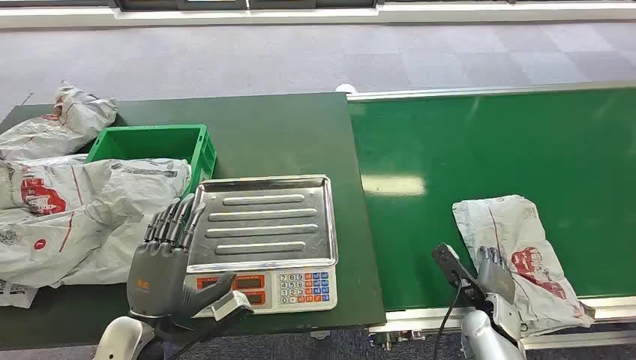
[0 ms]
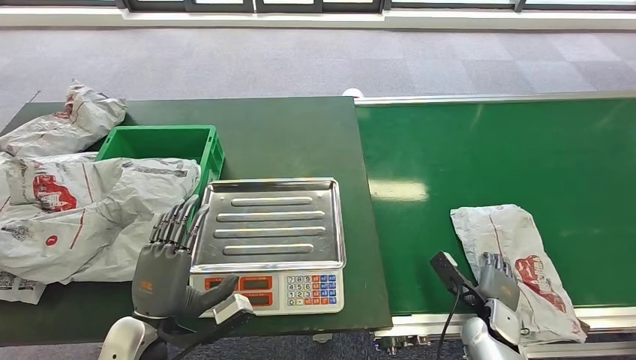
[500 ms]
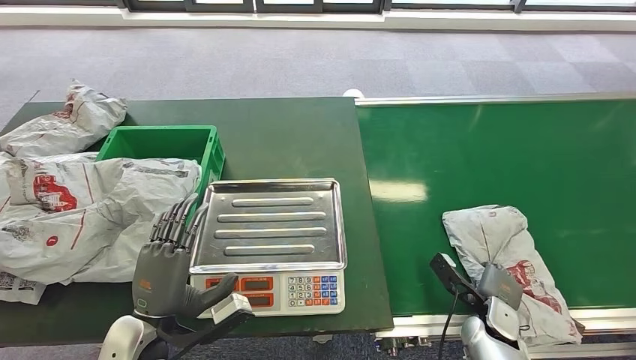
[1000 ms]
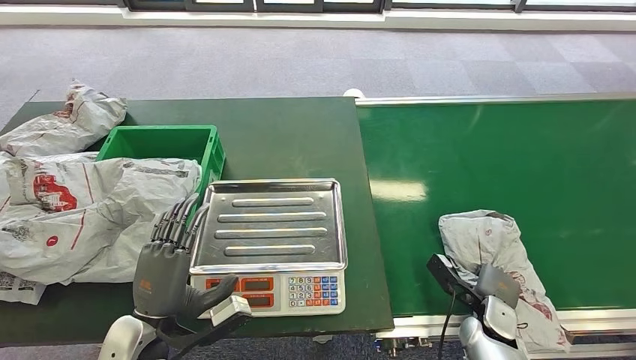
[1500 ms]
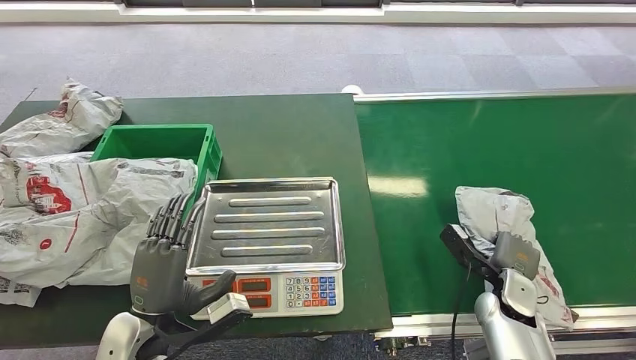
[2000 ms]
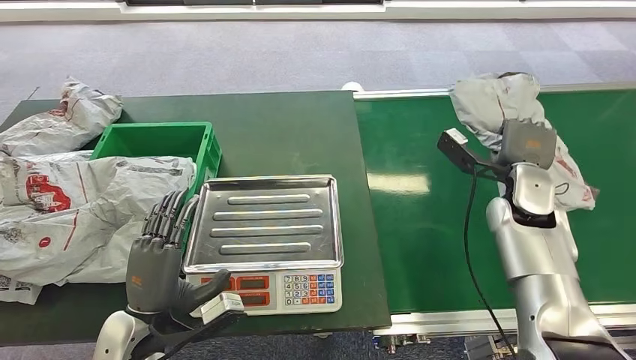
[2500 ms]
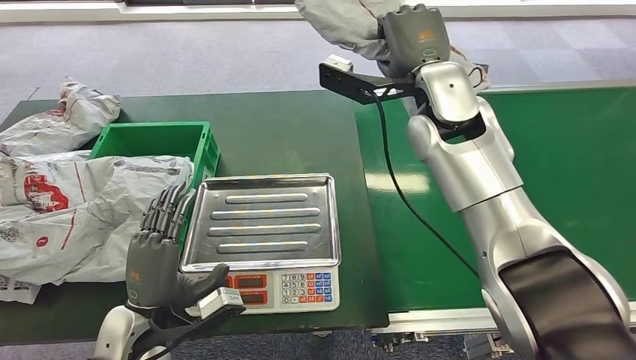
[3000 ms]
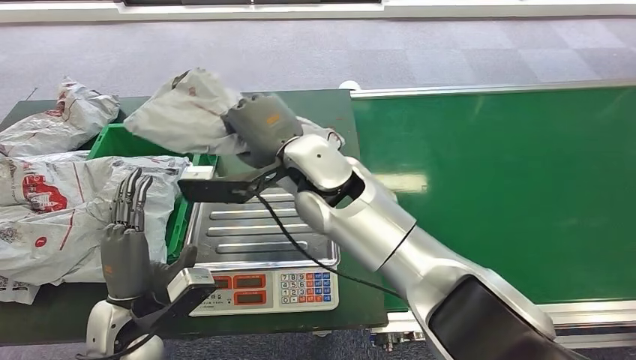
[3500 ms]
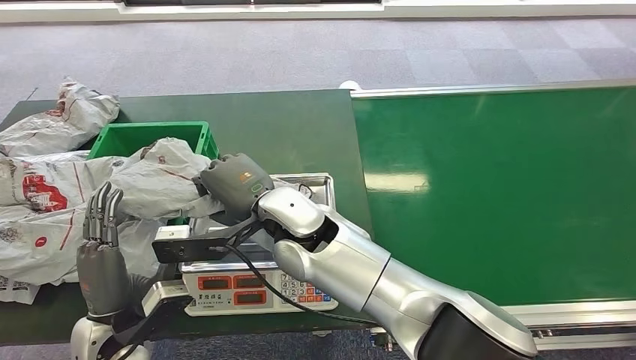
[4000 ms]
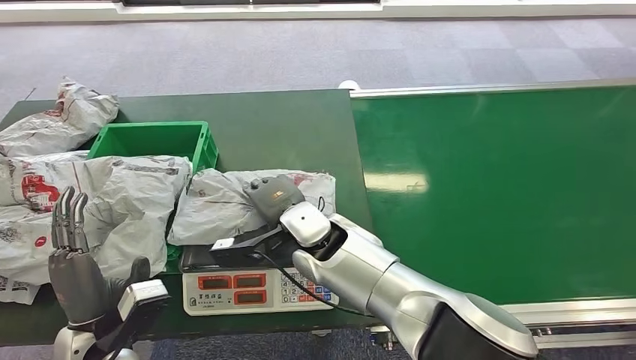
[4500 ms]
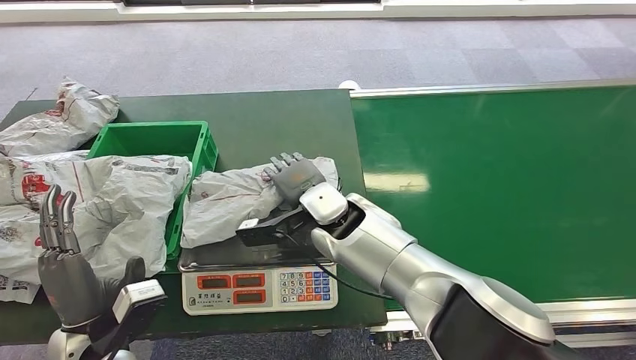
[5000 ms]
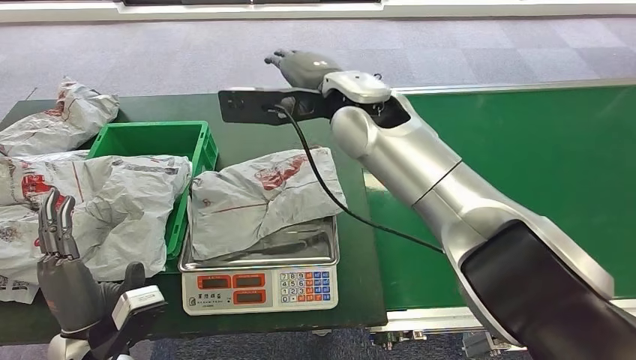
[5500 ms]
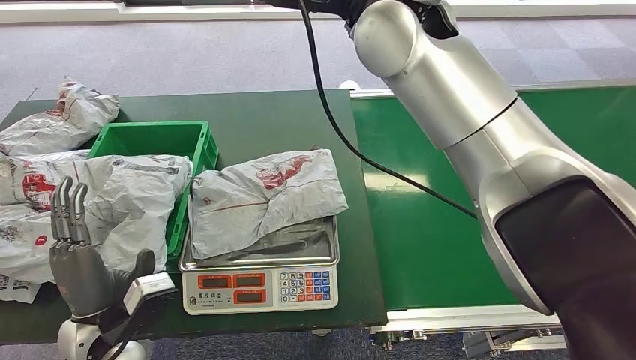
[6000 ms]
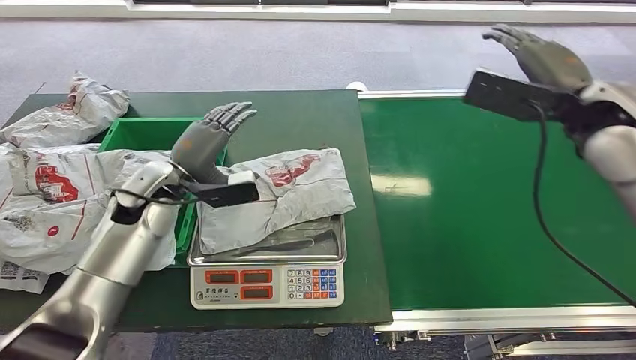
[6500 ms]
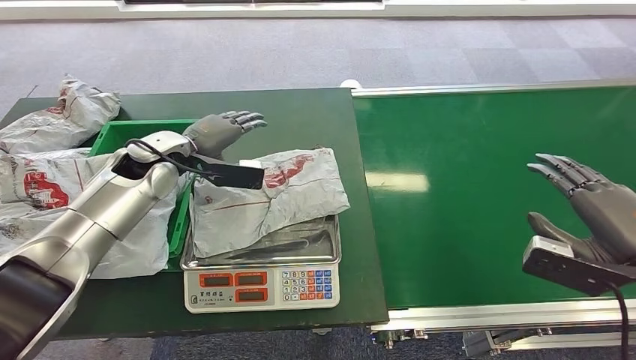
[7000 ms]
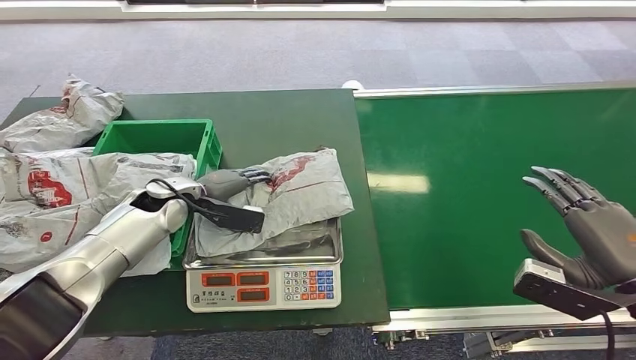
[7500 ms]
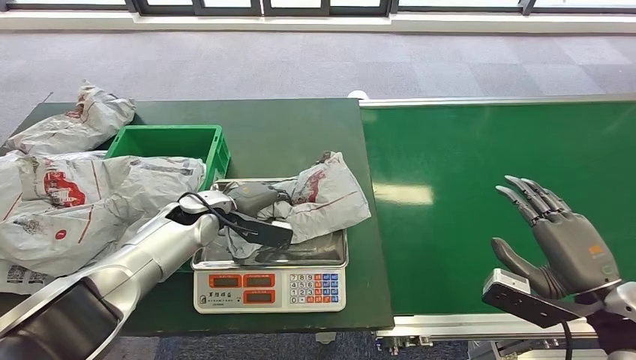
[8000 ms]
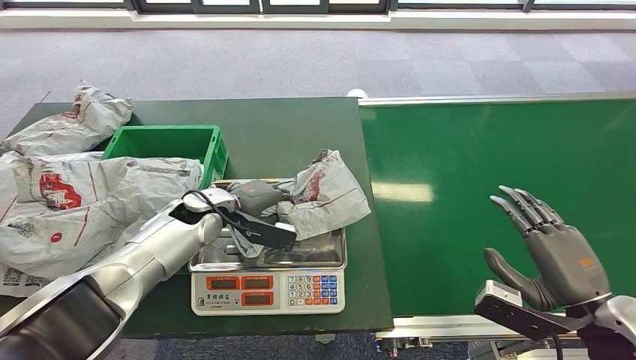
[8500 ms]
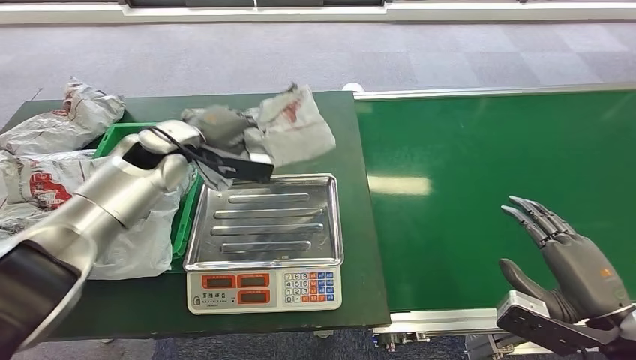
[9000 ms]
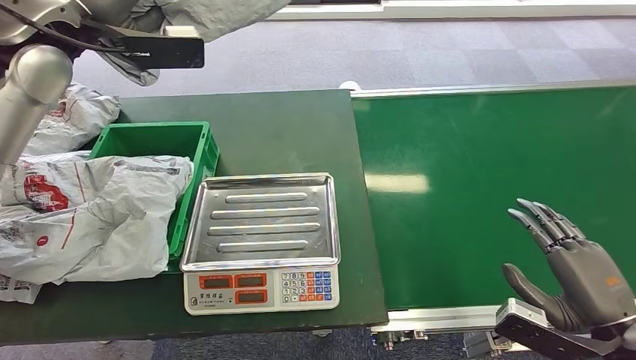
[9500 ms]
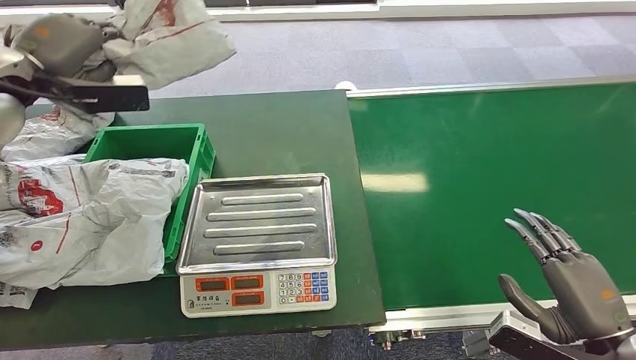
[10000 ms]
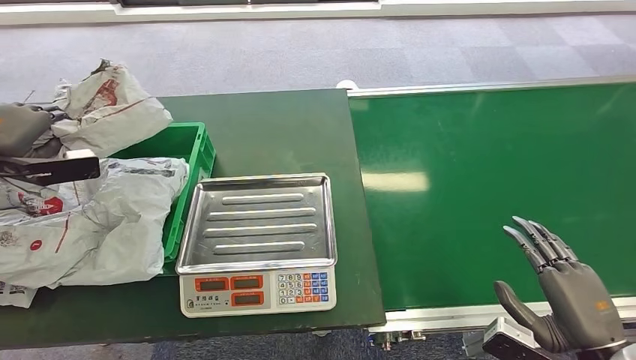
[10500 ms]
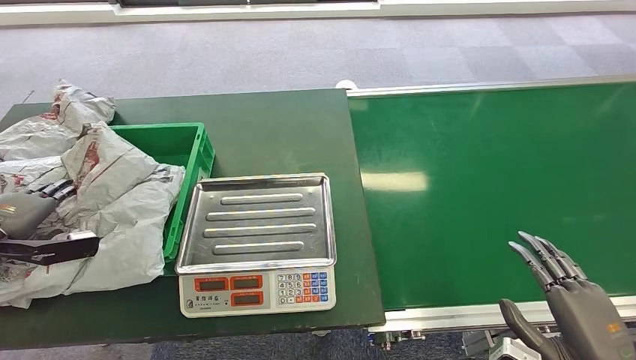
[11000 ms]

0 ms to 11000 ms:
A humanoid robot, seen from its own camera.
Step, 0 ms to 2500 ms: Pick up the package from the conveyor belt.
Step, 3000 ms to 6000 ms: Place the package onto the inbound machine.
Step, 6500 ms to 9000 ms: Pick up the package from the inbound machine.
Step, 9500 ms to 11000 ms: Place the package into the parcel locker.
